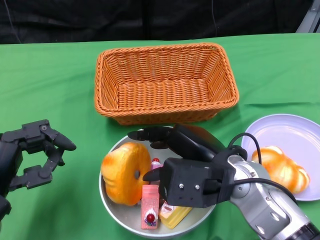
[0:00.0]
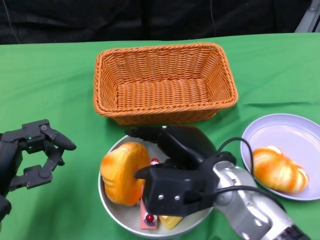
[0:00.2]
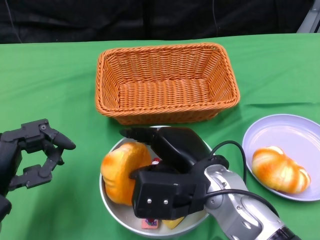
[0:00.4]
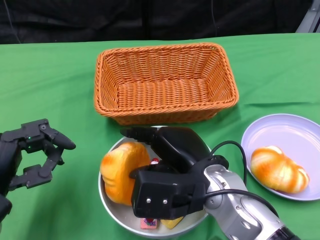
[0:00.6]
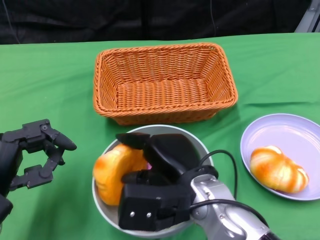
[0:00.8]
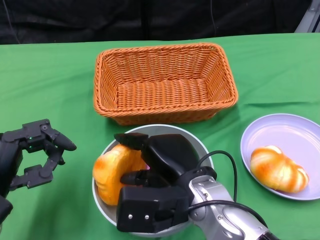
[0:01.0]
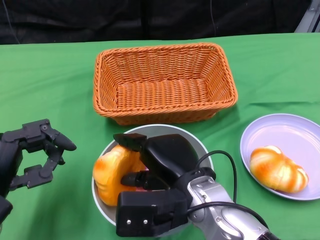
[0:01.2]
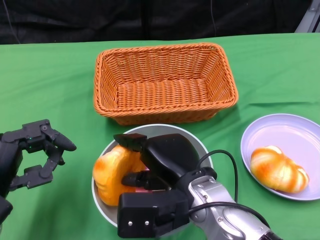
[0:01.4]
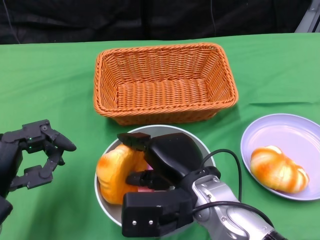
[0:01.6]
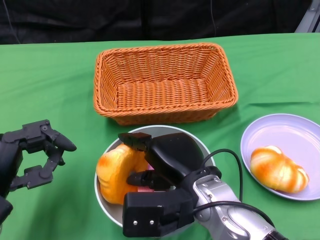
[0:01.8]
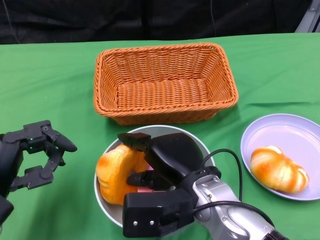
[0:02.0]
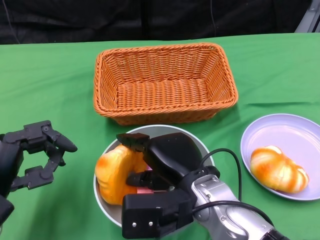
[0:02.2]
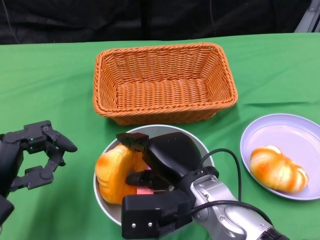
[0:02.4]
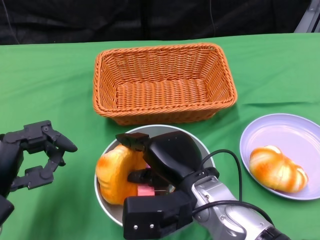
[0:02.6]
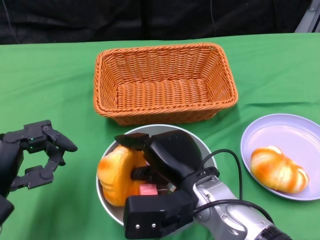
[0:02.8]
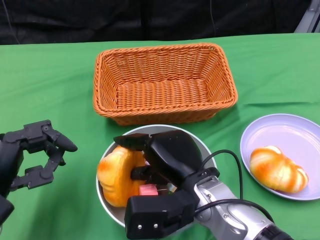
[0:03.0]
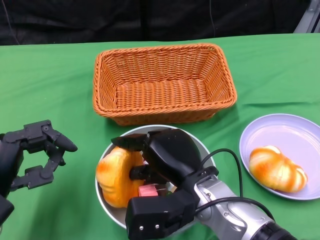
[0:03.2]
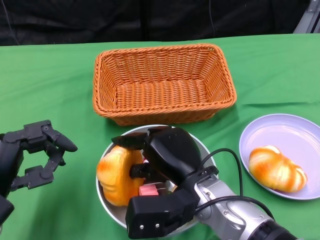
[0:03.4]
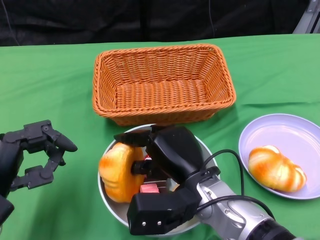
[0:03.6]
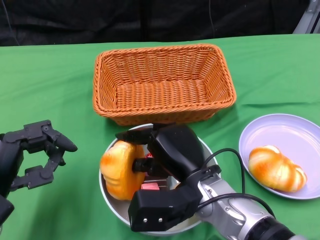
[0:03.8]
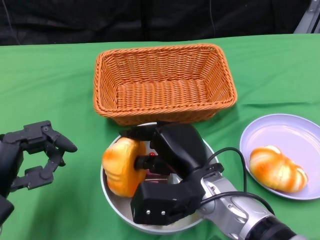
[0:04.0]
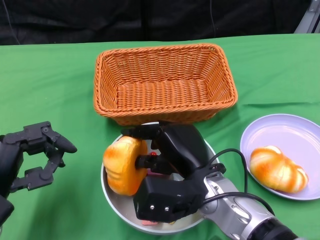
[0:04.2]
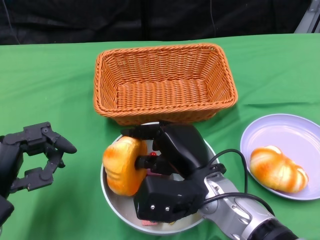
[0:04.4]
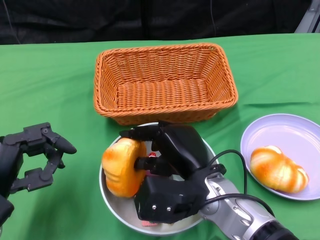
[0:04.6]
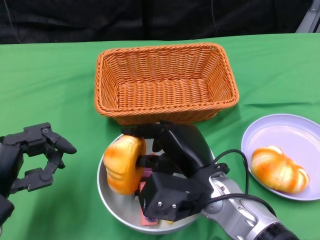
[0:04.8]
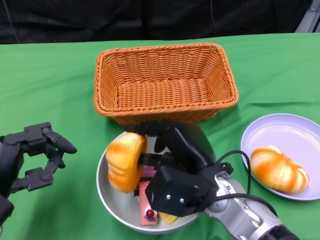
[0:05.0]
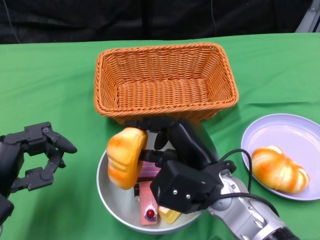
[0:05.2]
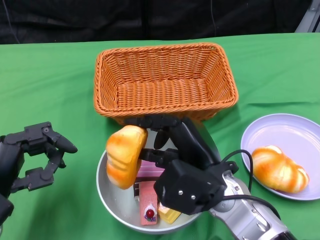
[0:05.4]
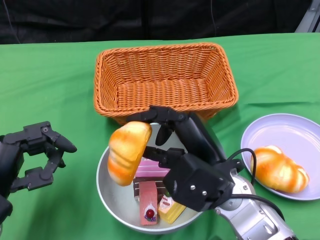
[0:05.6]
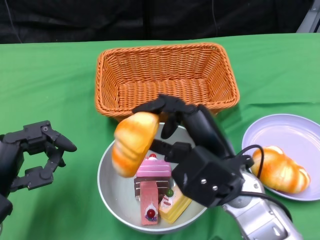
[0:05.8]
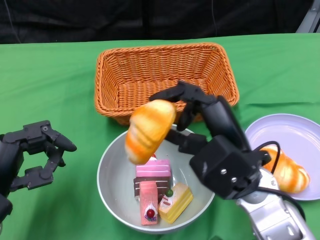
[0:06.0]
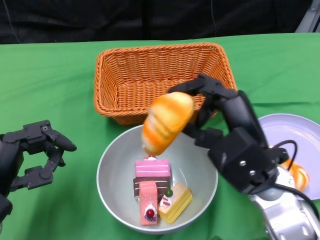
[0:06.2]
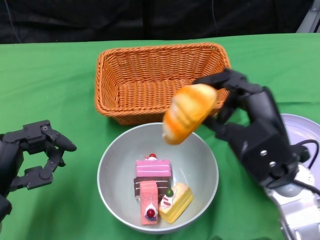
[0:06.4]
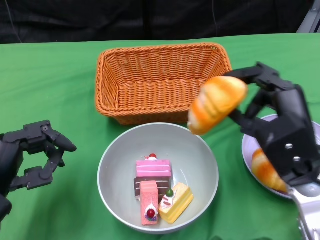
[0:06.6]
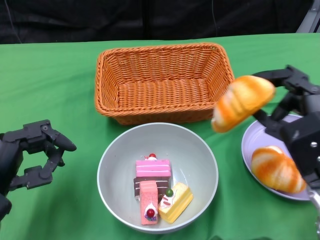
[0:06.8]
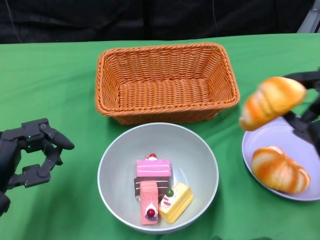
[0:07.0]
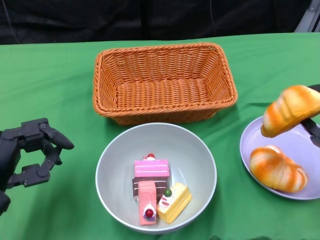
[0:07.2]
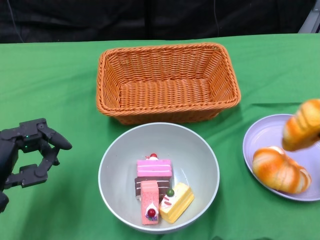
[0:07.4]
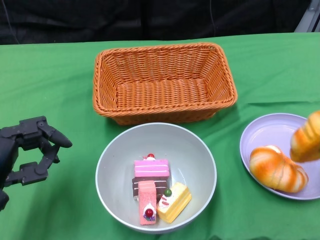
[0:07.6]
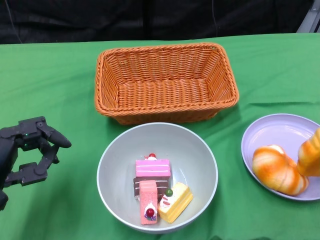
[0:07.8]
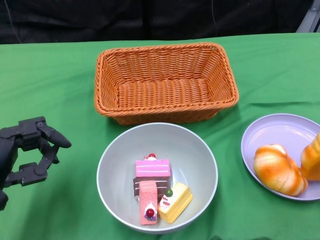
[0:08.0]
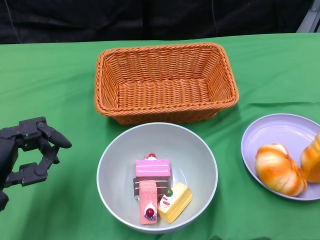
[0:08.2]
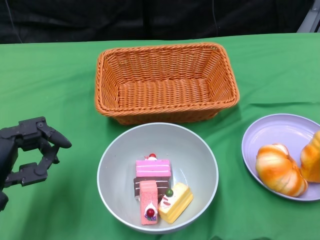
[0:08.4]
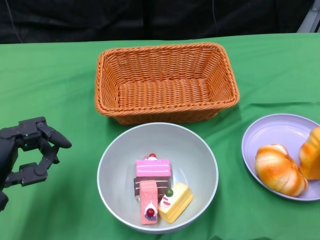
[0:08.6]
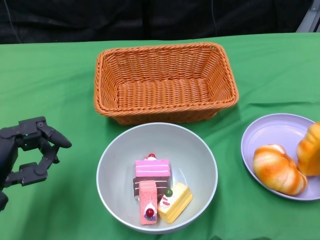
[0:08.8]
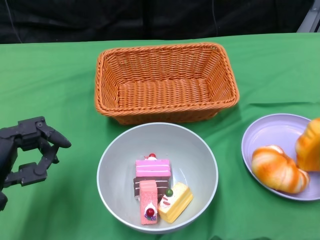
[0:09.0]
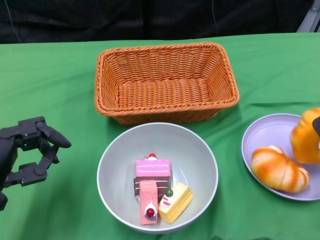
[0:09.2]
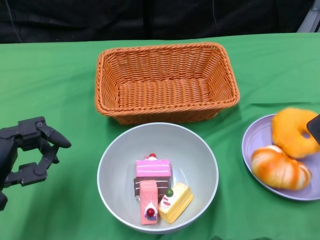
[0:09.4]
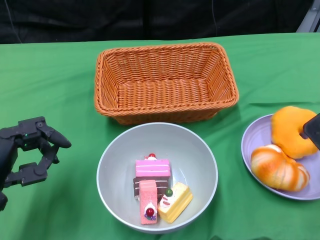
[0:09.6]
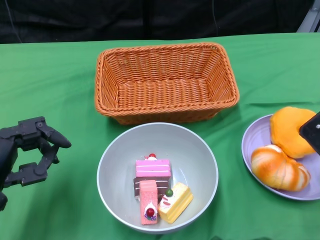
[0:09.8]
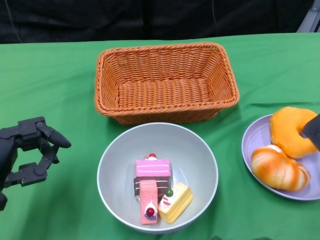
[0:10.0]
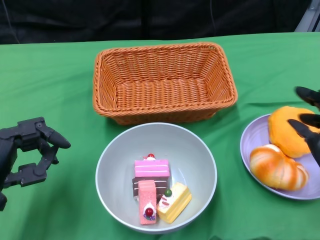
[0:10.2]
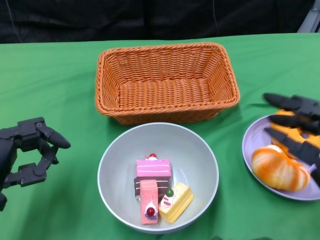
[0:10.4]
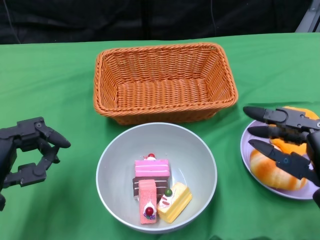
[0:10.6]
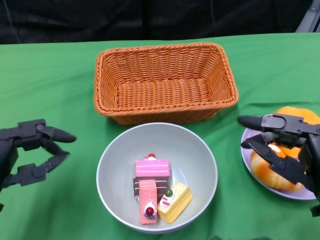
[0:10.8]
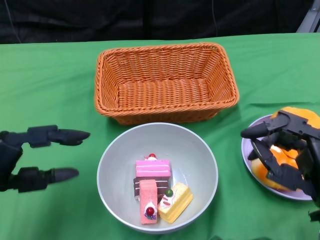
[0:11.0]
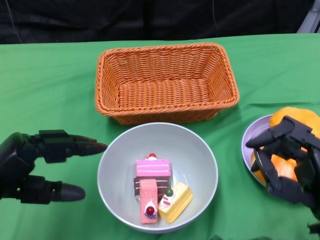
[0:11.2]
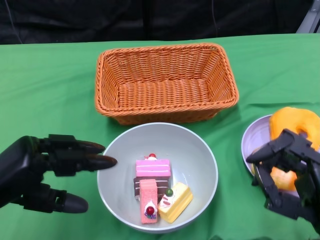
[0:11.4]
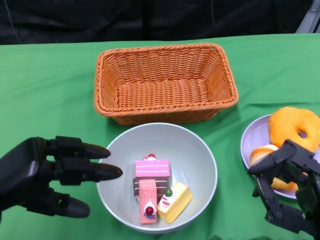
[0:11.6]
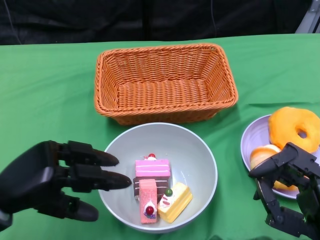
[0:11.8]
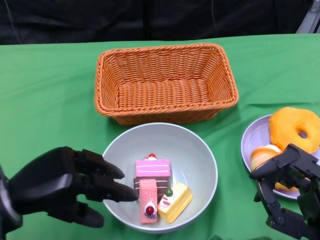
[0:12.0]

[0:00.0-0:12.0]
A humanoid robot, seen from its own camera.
Step, 0:00.0 to 0:10.2: Pick up the bread with the right gripper and place it on the plate.
0:00.0 to 0:01.6: The right hand moves some 5 cm.
0:01.6 to 0:04.4: The hands move only a little.
0:04.4 to 0:06.0: The right hand shifts approximately 10 cm upward and to the right.
0:06.0 to 0:07.6: The right hand is displaced to the right by some 20 cm.
0:07.6 to 0:09.0: The hands stay close to where they were, moving slightly.
0:09.0 to 0:10.4: The right hand moves to the left, approximately 5 cm.
0:10.4 to 0:12.0: The right hand moves backward, approximately 10 cm.

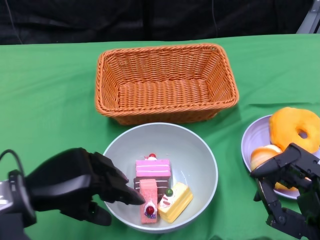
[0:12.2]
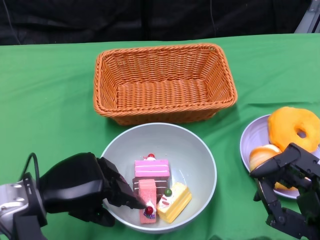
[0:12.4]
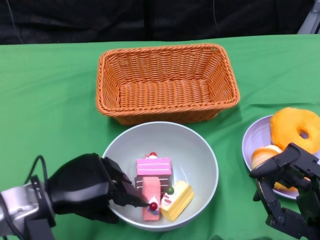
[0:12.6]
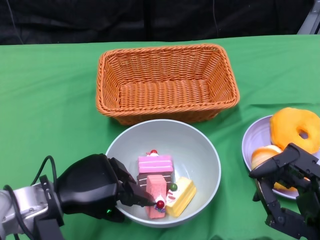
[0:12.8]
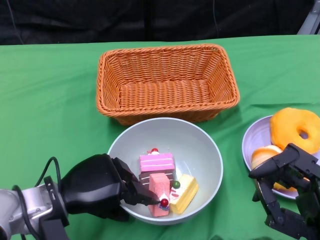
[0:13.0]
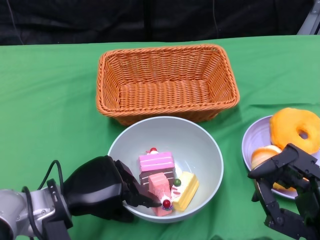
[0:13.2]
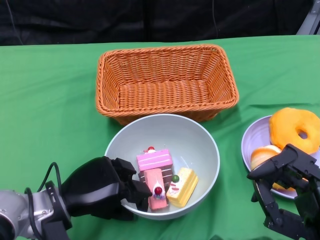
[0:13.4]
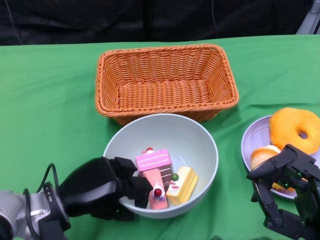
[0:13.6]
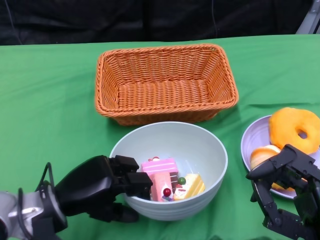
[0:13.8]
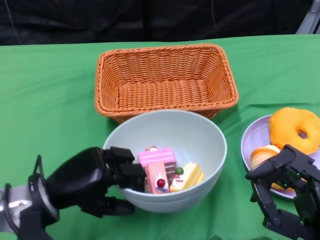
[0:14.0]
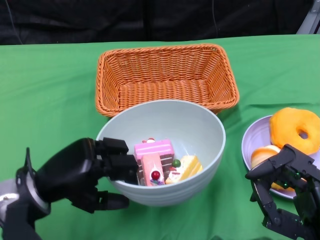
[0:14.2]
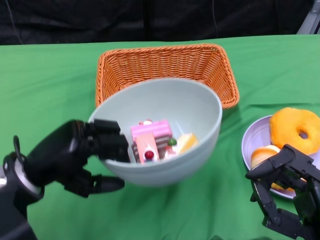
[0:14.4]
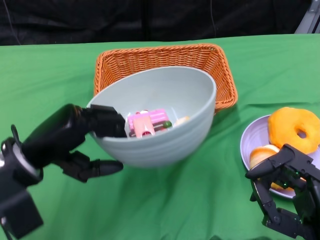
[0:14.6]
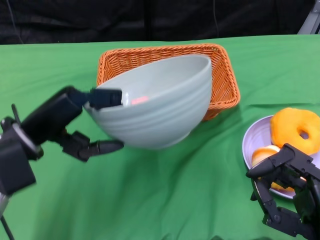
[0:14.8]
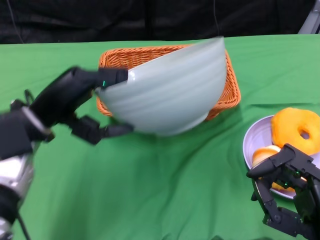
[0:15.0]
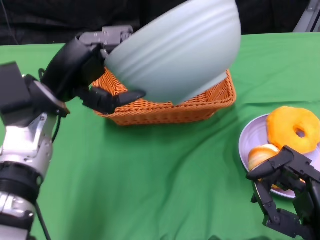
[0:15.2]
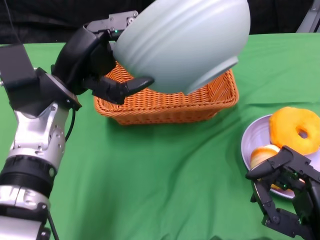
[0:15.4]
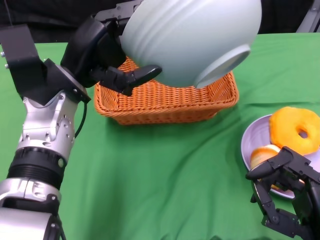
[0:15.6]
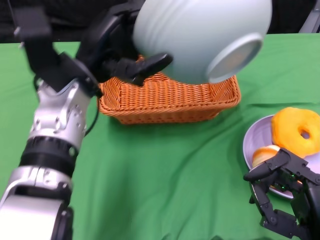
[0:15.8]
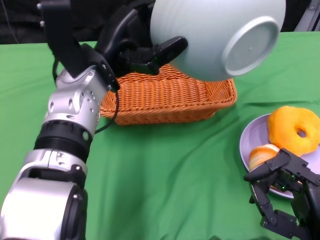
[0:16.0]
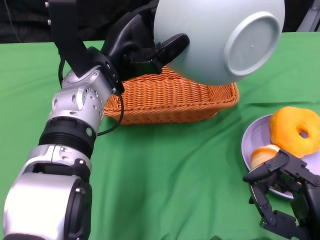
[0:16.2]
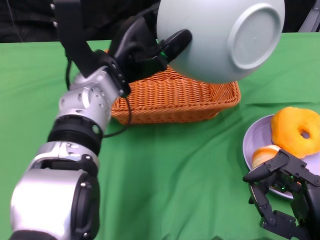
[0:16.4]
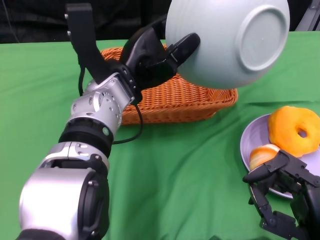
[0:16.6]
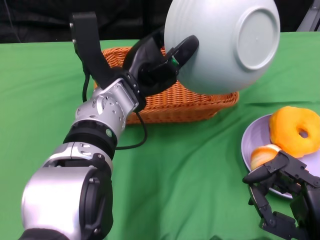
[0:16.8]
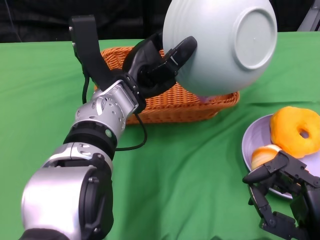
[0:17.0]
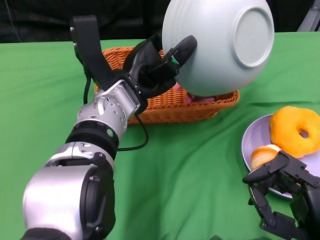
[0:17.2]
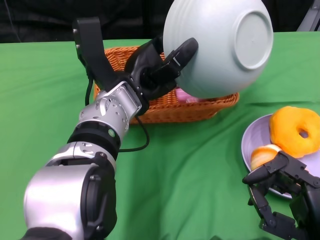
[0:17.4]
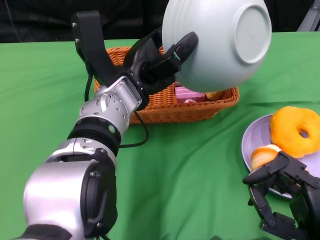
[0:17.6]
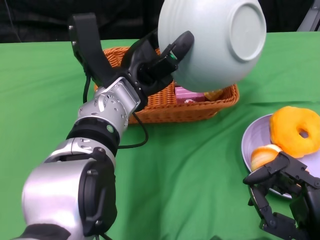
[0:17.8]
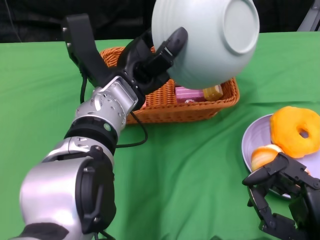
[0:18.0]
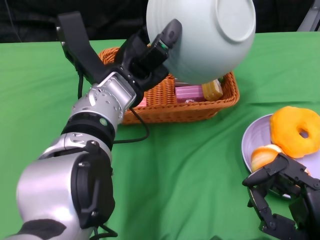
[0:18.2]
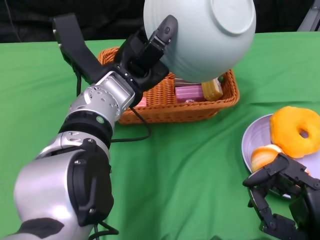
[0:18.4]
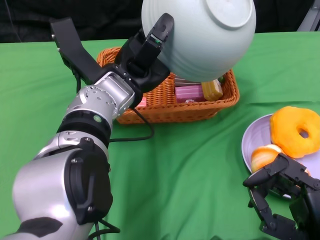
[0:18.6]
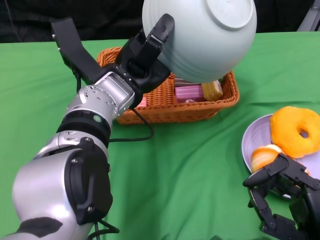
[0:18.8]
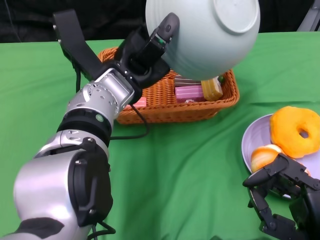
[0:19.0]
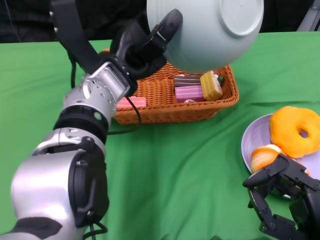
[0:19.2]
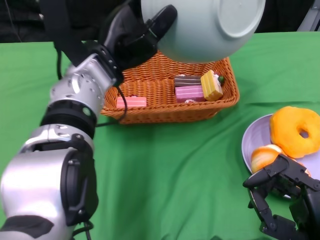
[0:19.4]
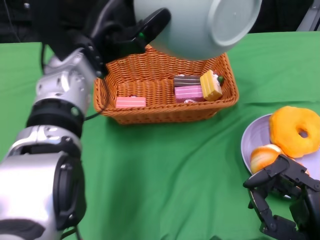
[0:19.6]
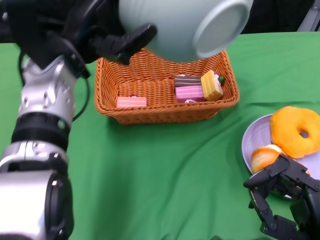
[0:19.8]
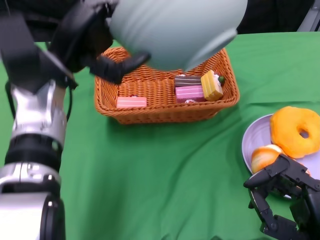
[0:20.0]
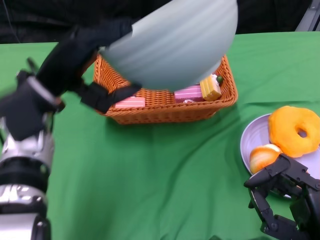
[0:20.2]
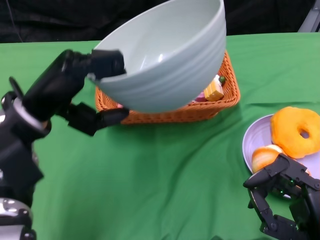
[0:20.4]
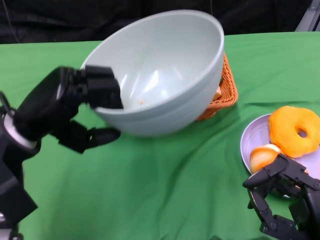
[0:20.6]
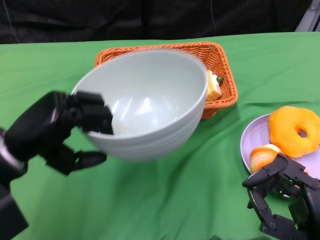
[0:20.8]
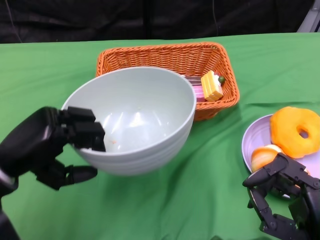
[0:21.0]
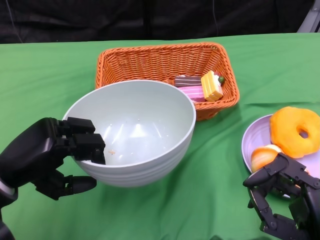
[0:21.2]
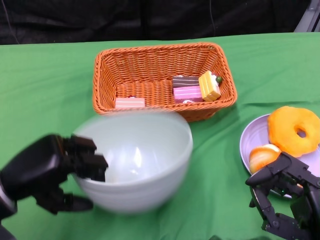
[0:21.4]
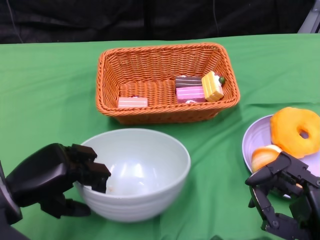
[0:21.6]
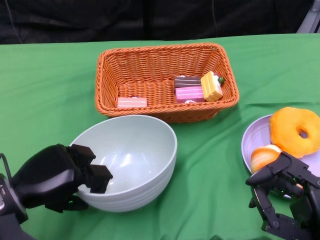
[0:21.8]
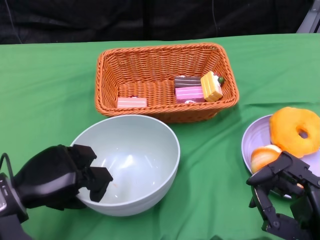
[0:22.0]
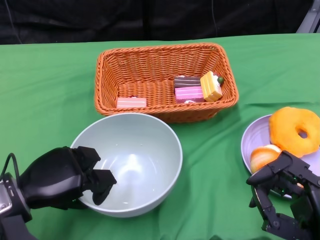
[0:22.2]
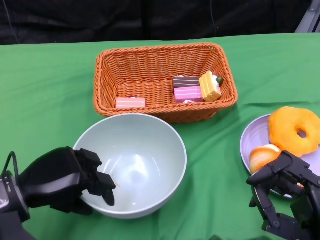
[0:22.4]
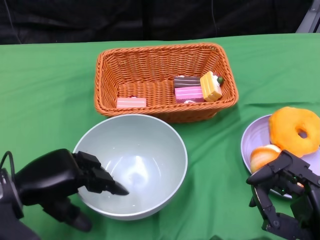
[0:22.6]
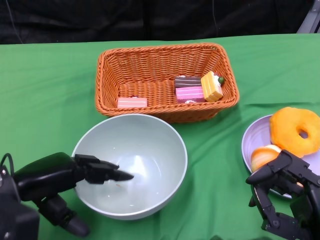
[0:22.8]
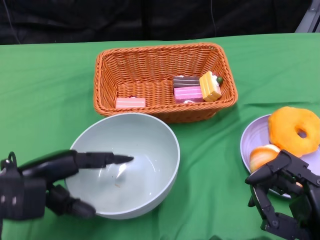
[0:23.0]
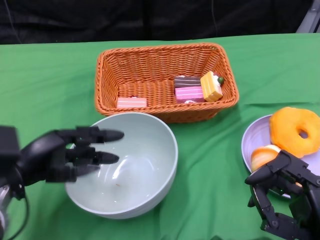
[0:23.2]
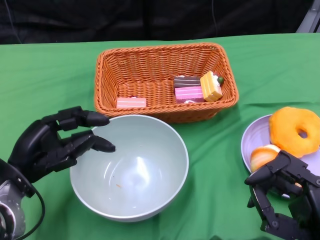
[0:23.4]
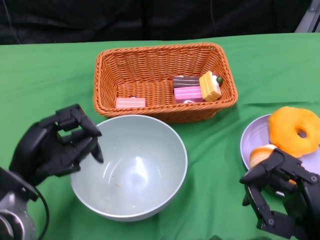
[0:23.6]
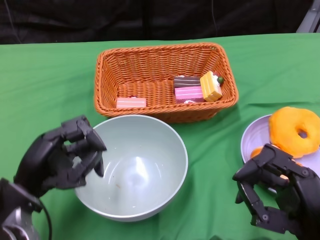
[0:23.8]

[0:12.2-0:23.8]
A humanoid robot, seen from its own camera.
Step, 0:14.2 to 0:18.4: Pour the cake into the basket with the left gripper.
Step, 0:18.6 to 0:22.8: Place the bowl on the table with the left gripper.
0:12.2 to 0:13.6: The left hand is displaced downward by some 5 cm.
0:13.6 to 0:15.0: The left hand goes approximately 10 cm upward and forward.
0:15.0 to 0:16.6: The left hand moves to the right and forward, roughly 15 cm.
0:19.4 to 0:21.0: The left hand moves to the left, backward and downward, about 20 cm.
0:21.0 to 0:22.4: The left hand shifts some 5 cm downward.
